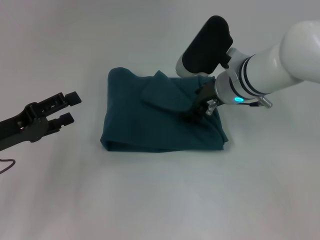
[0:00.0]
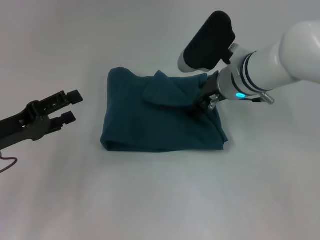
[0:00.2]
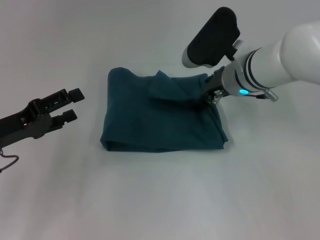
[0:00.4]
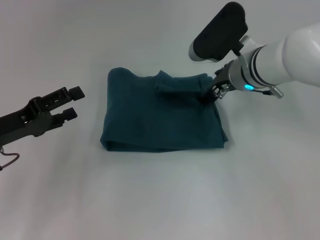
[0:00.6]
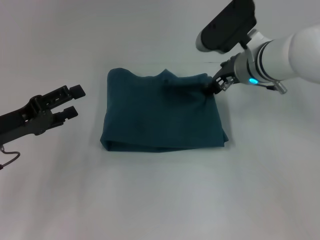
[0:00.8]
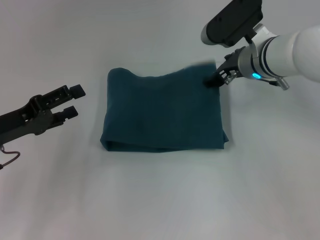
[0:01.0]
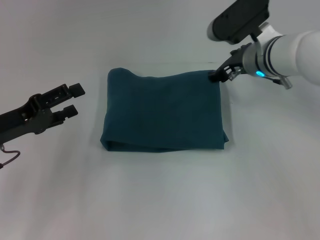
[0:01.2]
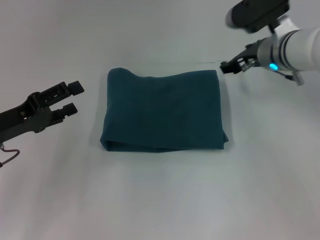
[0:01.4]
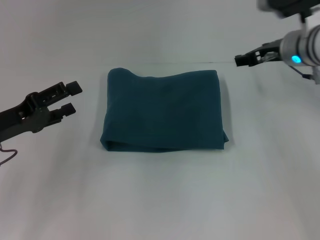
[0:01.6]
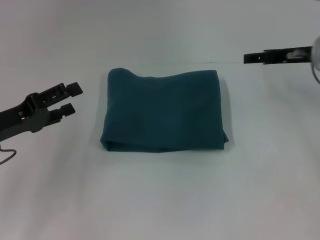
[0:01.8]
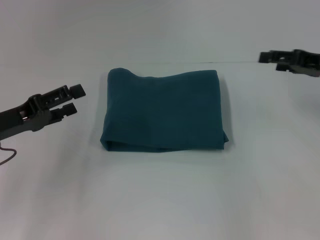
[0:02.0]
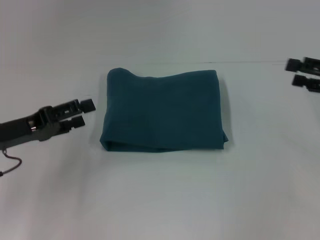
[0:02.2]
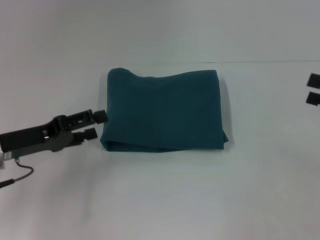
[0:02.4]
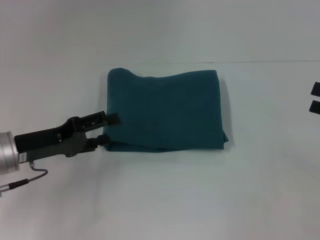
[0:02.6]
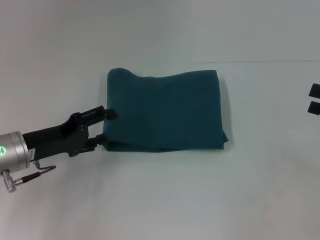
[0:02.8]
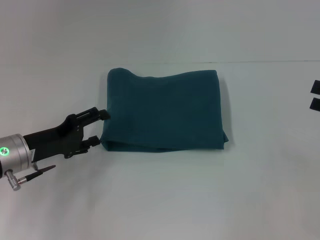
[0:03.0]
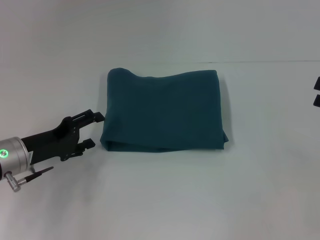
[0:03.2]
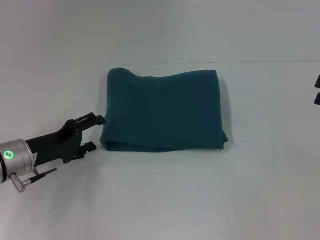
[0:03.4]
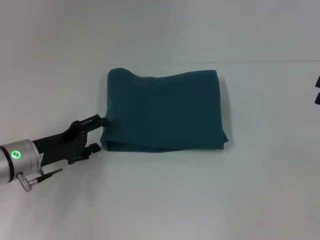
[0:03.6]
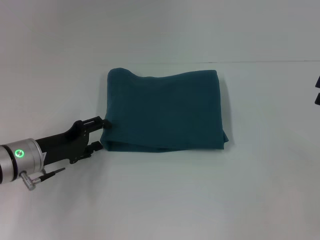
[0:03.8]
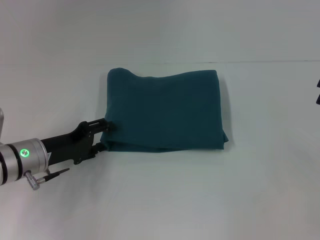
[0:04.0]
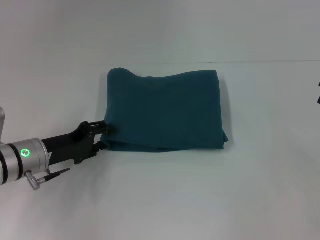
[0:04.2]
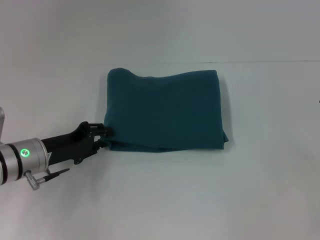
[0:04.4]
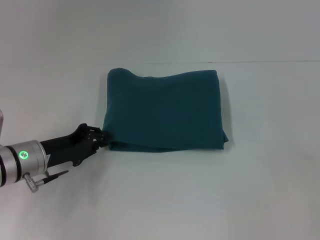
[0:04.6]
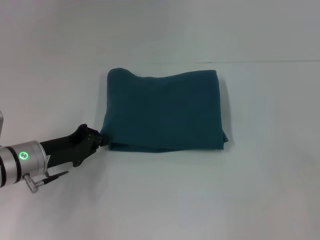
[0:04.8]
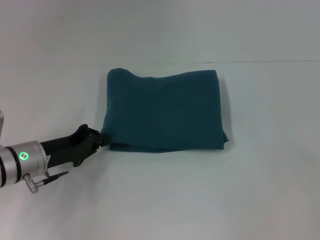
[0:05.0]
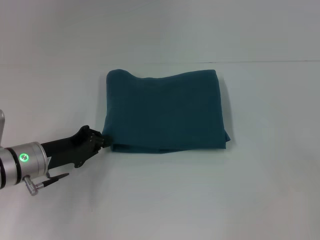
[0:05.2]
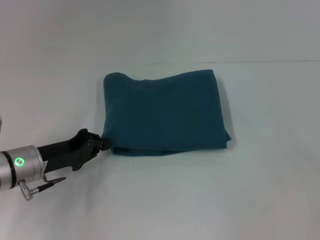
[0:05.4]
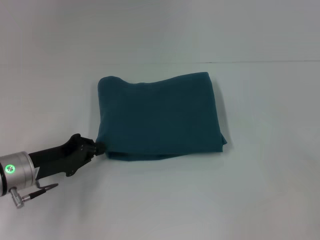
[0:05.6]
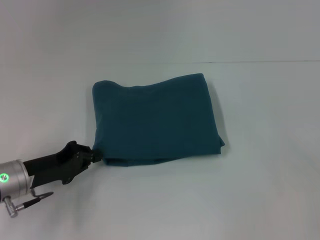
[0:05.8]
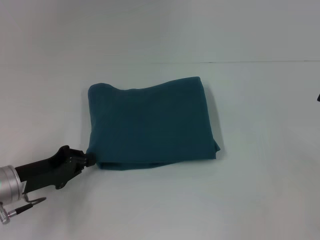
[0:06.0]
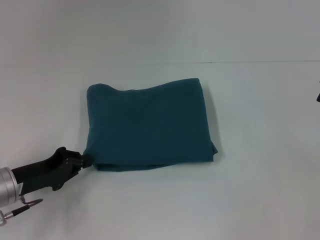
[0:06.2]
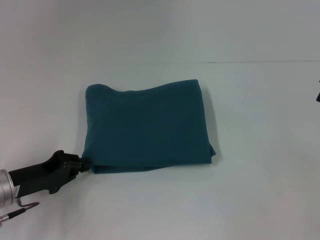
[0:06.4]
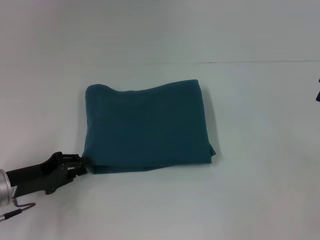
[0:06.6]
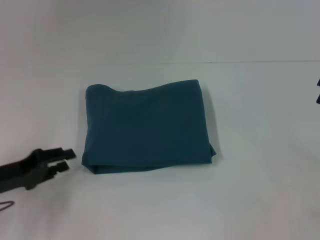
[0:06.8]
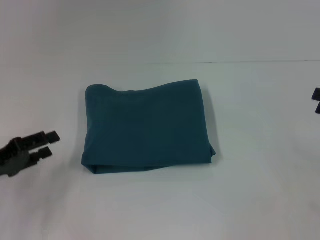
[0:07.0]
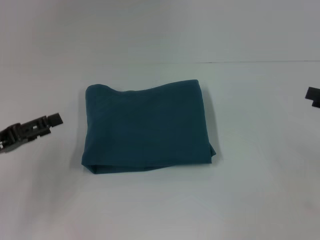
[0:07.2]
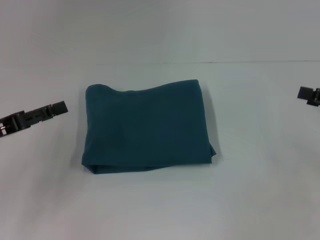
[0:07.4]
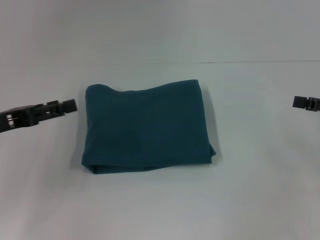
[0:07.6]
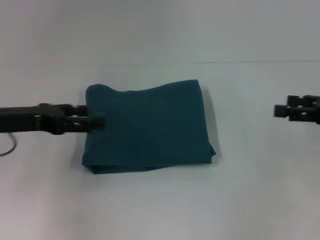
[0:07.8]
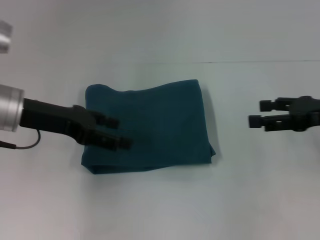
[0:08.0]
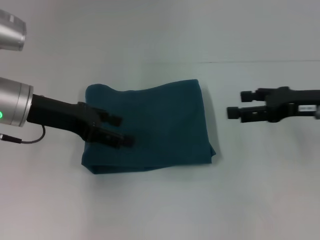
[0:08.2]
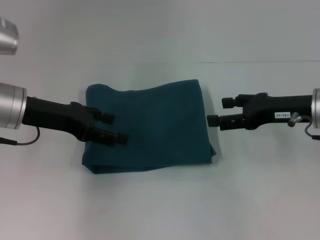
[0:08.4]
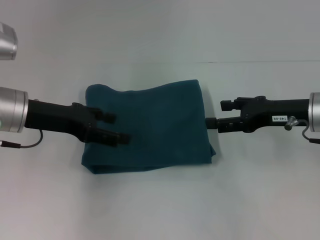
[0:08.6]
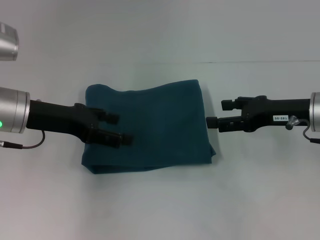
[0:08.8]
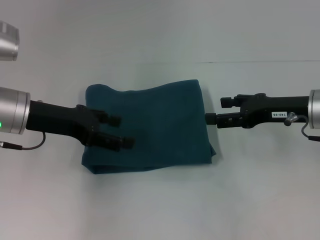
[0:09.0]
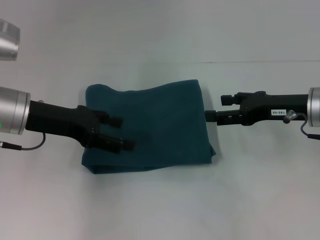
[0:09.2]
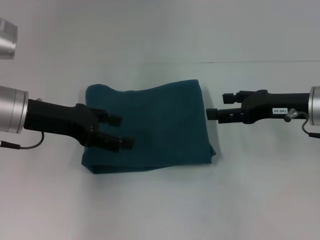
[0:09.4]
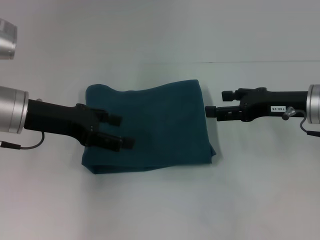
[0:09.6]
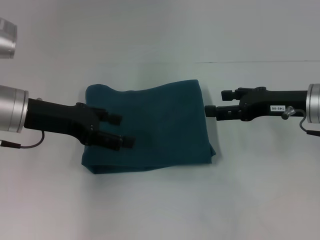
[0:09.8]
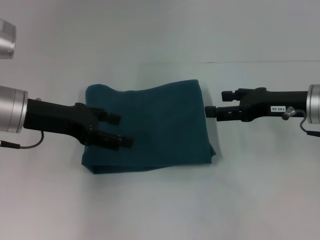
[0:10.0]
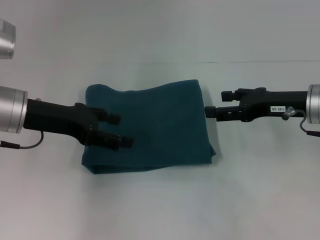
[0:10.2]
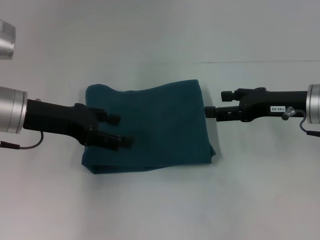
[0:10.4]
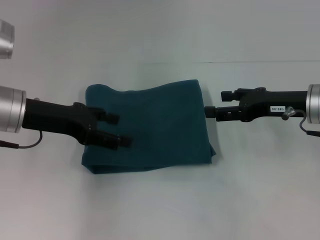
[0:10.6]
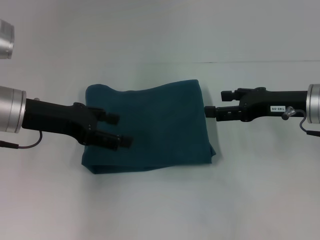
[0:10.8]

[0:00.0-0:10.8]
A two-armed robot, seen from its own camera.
0:00.0 to 0:01.6: The right gripper travels to the right by some 10 cm.
0:01.6 to 0:03.0: The left gripper changes place by roughly 5 cm. The right gripper goes some 25 cm to the right and backward.
0:03.0 to 0:04.6: The left gripper closes.
0:04.6 to 0:06.2: The left gripper changes place by about 5 cm, and closes.
0:06.2 to 0:07.8: The right gripper ends up some 5 cm from where it was; the left gripper moves upward, roughly 10 cm, and opens its fingers.
0:07.8 to 0:09.2: The right gripper goes some 10 cm to the left, while the left gripper moves to the right, approximately 5 cm.
0:09.2 to 0:10.8: The two grippers keep their place.

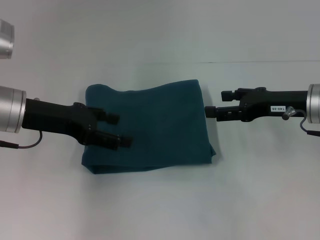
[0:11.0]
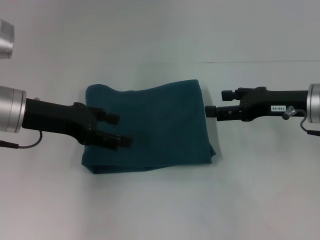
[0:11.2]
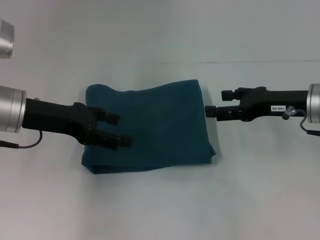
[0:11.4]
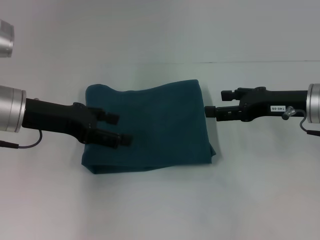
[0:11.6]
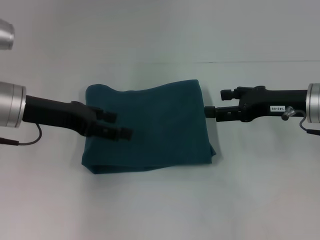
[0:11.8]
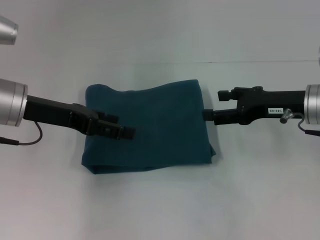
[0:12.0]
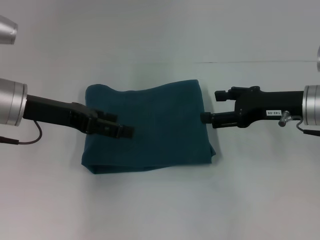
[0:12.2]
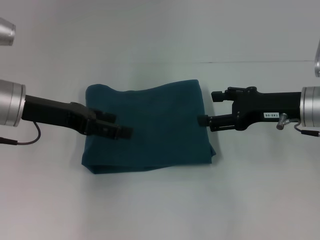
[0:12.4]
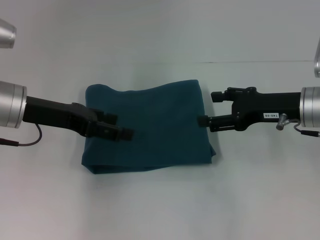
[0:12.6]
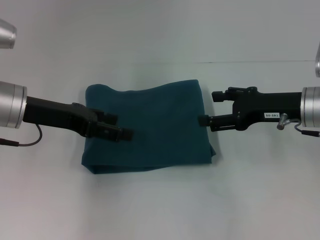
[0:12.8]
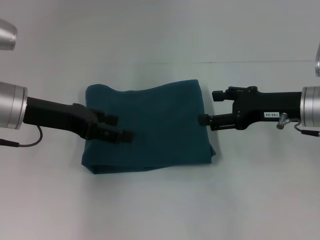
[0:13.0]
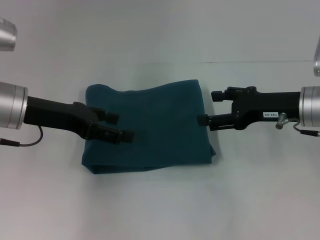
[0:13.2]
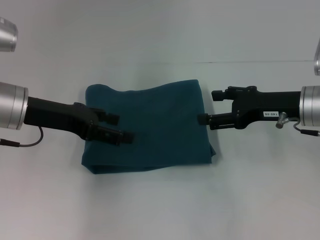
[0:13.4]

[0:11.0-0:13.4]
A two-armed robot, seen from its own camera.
0:11.0 to 0:13.4: The grippers move only a little.

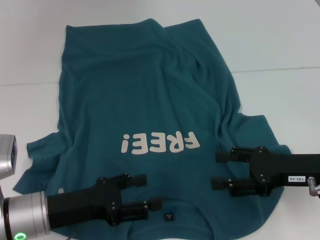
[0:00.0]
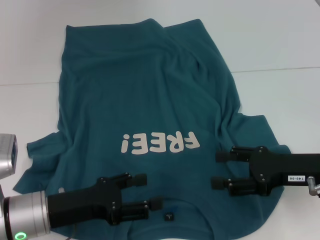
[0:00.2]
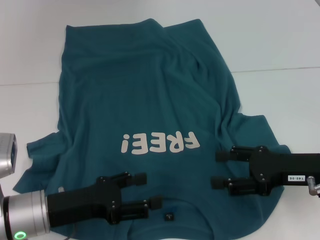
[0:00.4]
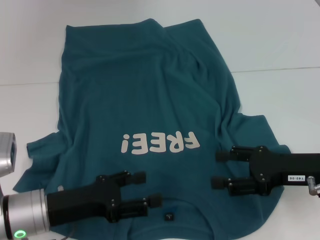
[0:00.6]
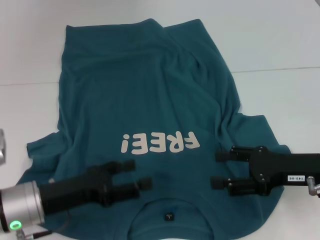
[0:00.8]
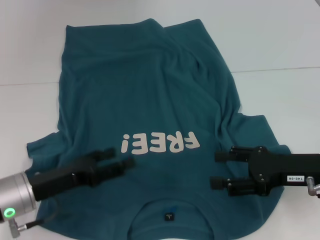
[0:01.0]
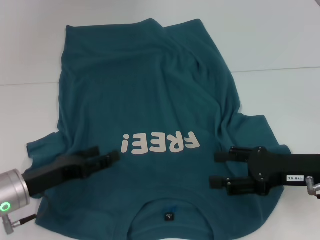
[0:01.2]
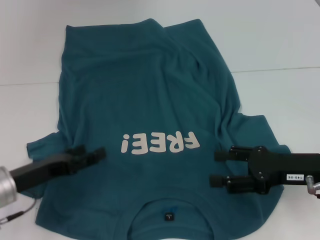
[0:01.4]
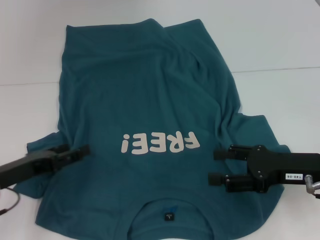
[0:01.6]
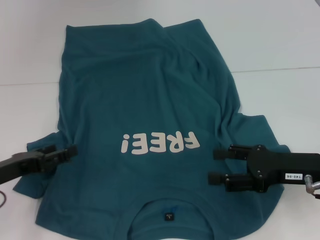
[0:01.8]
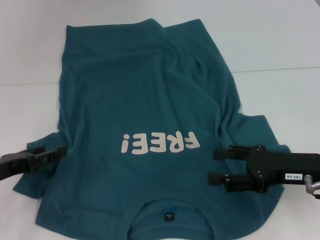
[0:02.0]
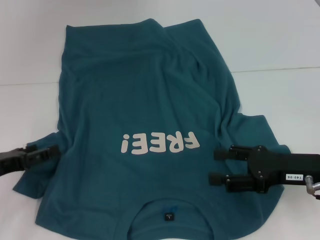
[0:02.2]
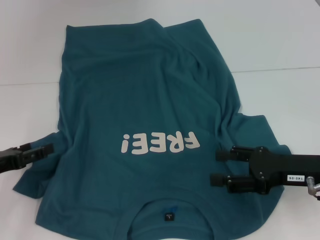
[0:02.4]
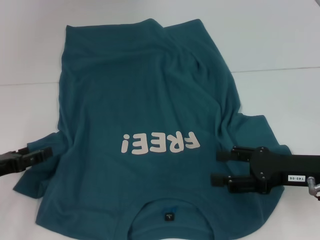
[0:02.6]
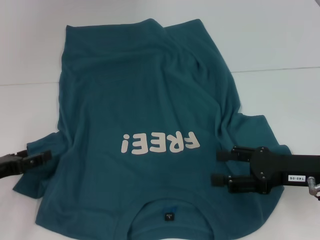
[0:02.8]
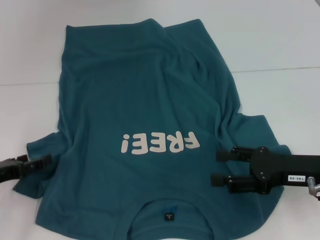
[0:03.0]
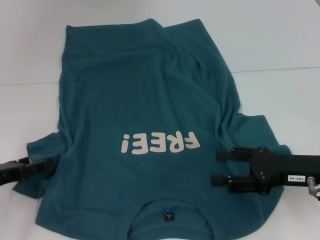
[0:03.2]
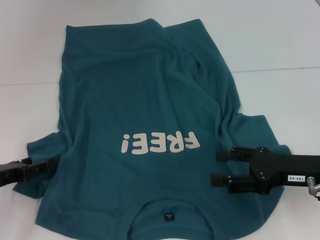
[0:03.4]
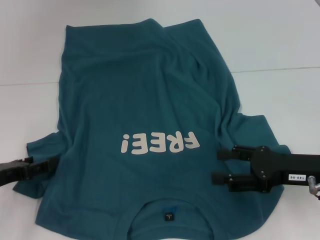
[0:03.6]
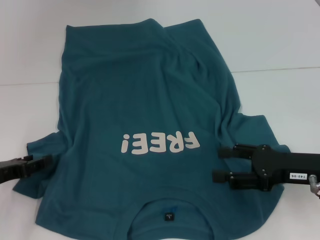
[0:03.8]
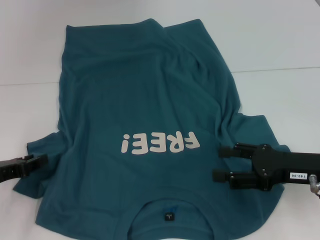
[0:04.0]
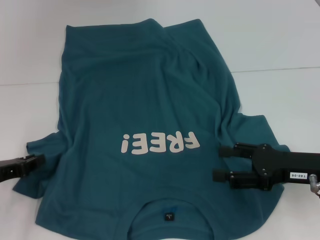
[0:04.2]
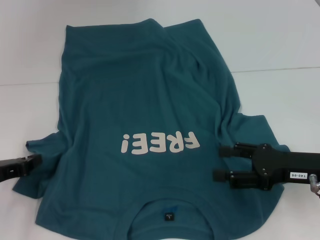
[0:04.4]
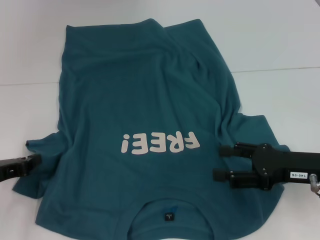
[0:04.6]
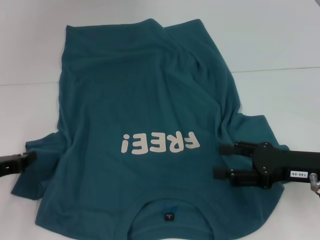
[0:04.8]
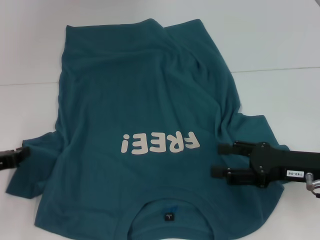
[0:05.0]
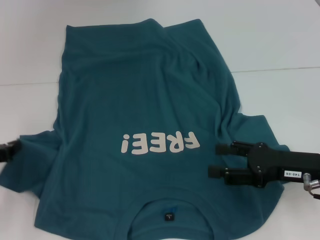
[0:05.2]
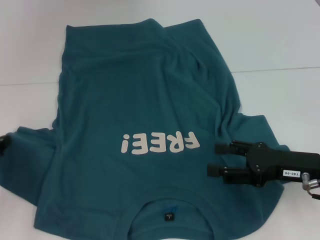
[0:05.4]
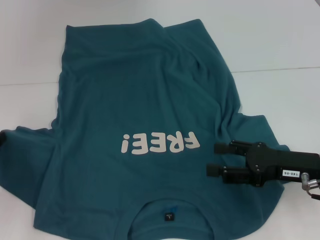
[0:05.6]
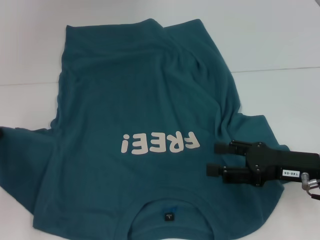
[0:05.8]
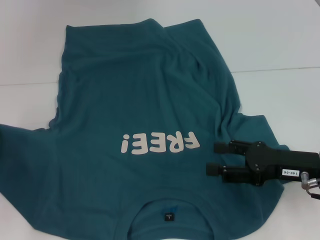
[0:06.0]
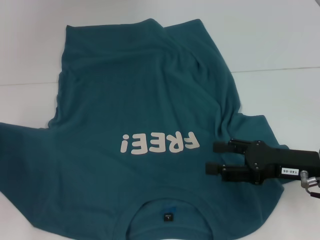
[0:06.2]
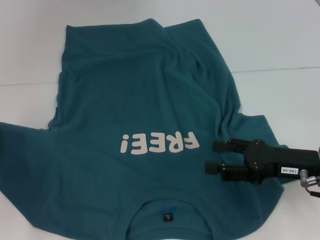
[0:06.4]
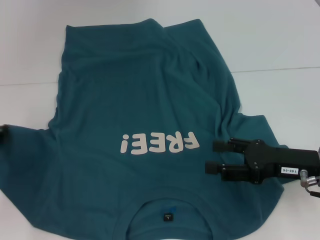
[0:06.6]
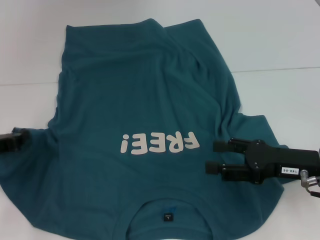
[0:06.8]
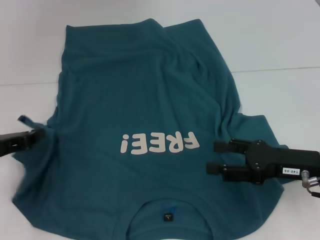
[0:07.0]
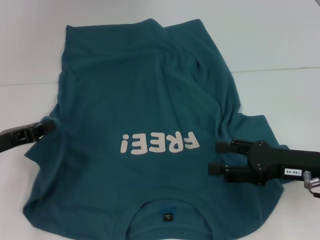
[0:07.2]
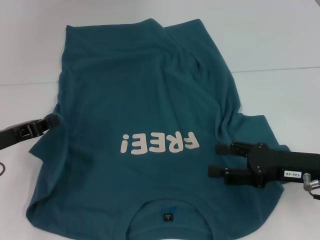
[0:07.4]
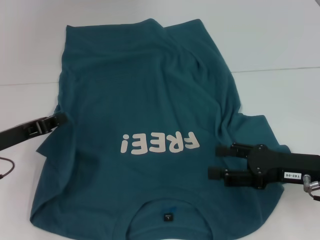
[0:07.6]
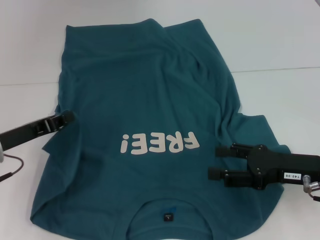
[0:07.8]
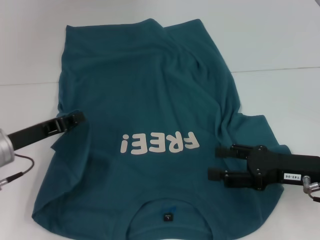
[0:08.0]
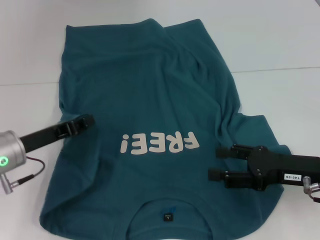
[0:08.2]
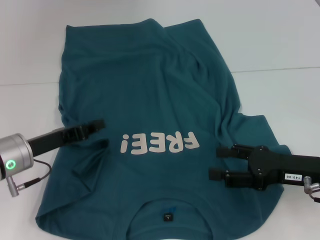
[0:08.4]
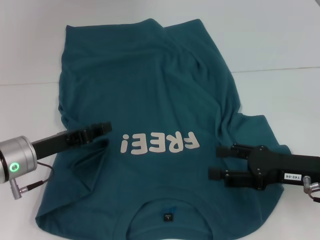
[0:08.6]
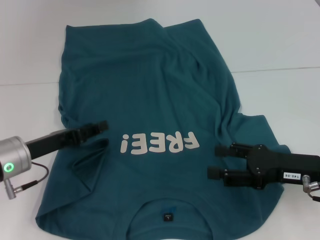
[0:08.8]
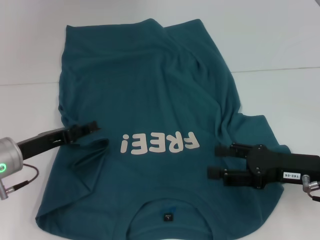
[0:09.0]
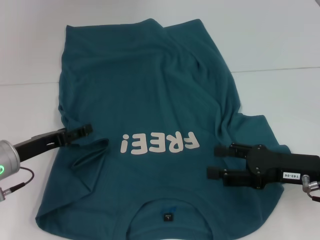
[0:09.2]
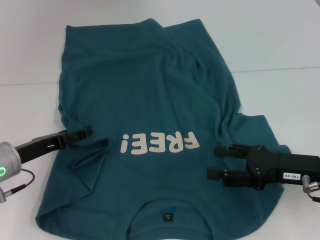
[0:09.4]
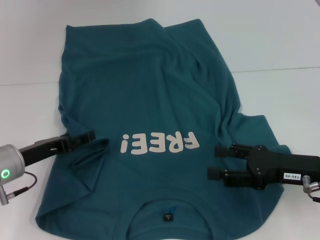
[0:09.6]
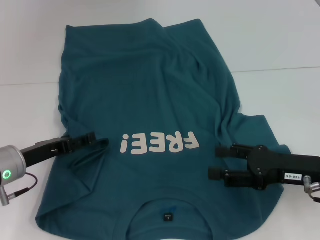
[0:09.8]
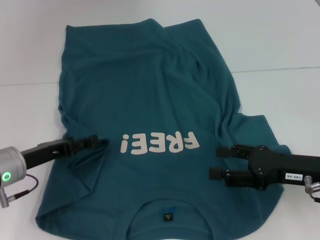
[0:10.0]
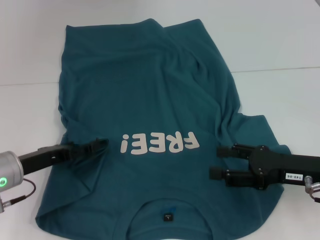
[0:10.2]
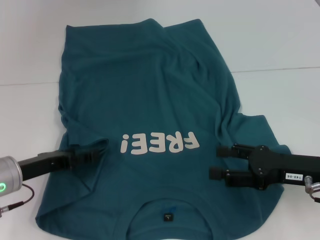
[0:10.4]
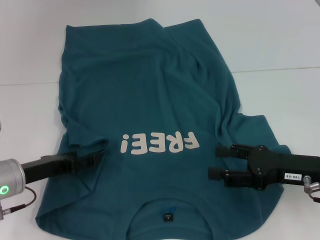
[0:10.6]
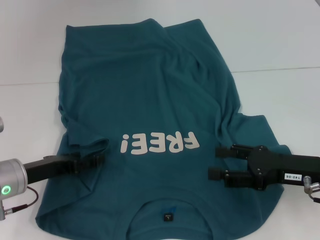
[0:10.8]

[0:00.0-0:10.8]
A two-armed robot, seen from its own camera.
0:00.0 to 0:01.6: The left gripper heads to the left, covering approximately 5 cm.
0:01.6 to 0:03.0: The grippers move only a little.
0:04.6 to 0:06.2: The left gripper ends up some 5 cm from where it was.
0:06.2 to 0:07.8: The left gripper shifts roughly 10 cm to the right.
0:07.8 to 0:09.2: The left gripper opens up.
0:09.2 to 0:10.8: The grippers make only small movements.
